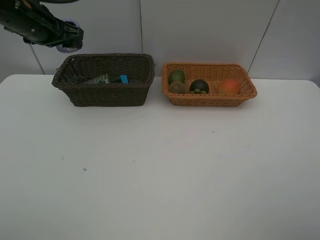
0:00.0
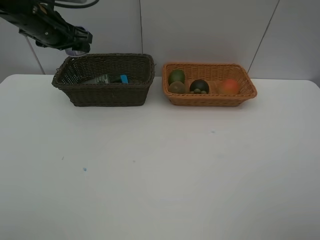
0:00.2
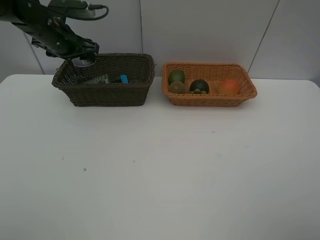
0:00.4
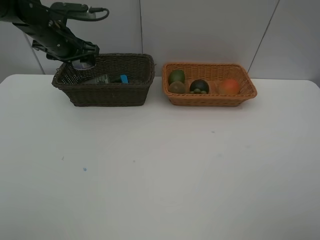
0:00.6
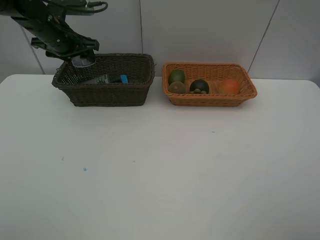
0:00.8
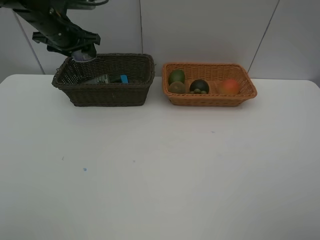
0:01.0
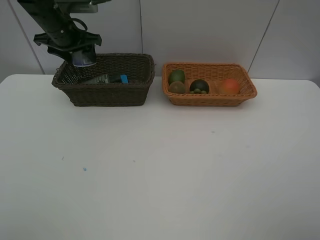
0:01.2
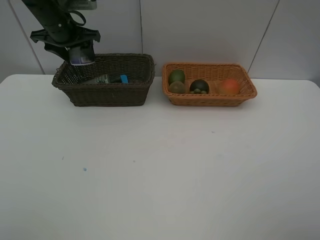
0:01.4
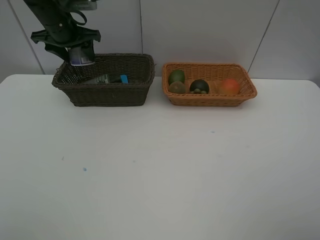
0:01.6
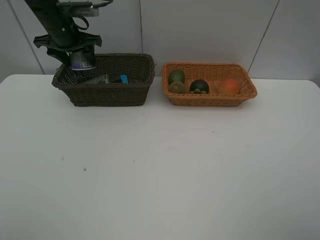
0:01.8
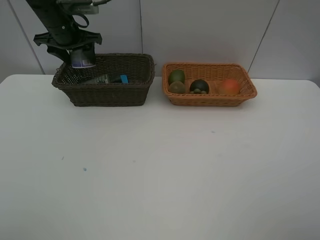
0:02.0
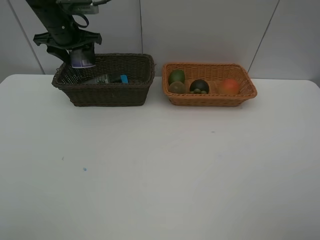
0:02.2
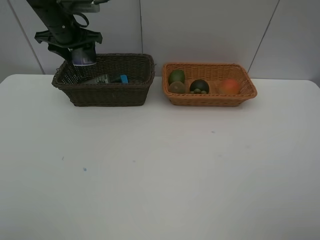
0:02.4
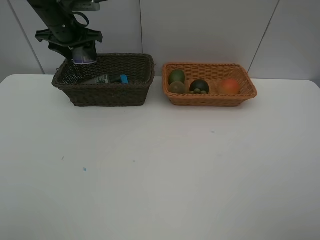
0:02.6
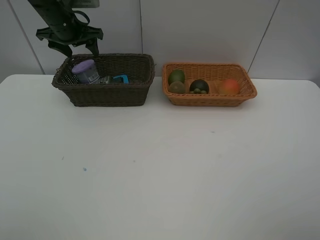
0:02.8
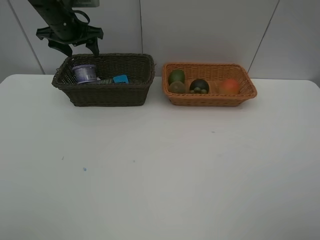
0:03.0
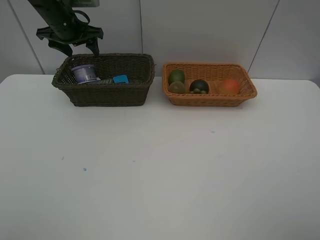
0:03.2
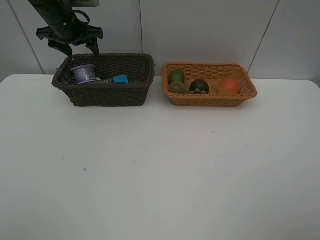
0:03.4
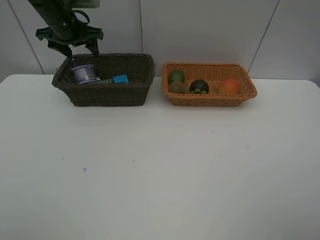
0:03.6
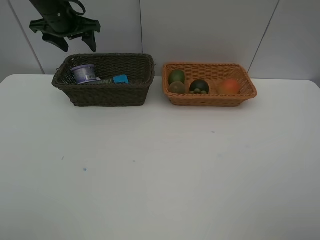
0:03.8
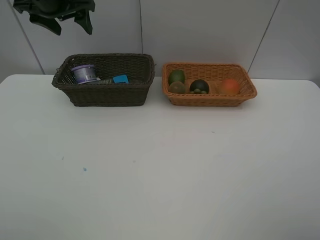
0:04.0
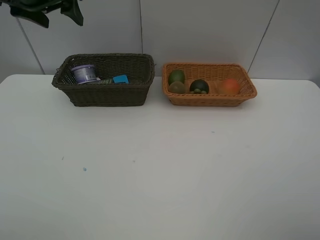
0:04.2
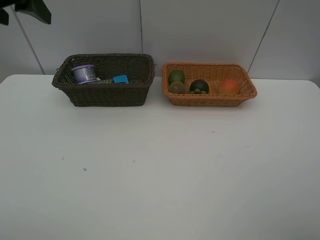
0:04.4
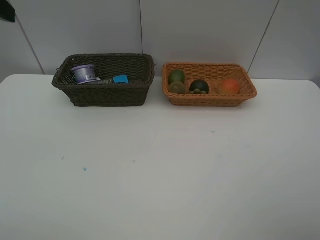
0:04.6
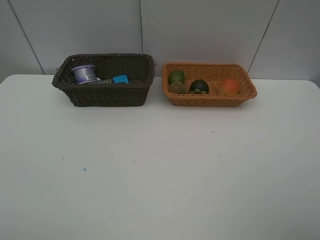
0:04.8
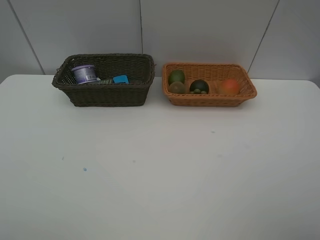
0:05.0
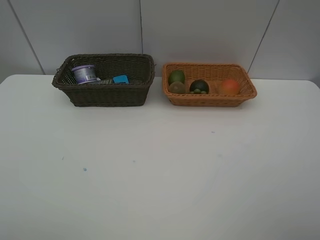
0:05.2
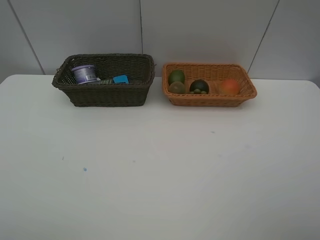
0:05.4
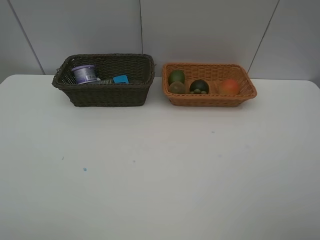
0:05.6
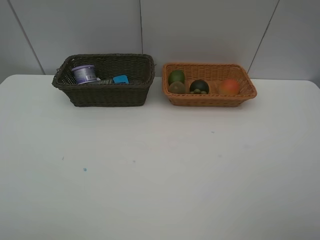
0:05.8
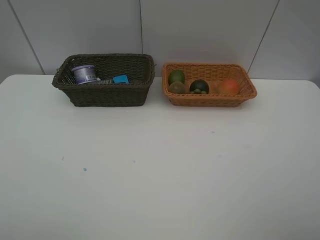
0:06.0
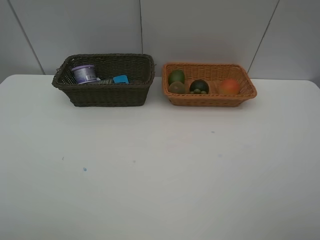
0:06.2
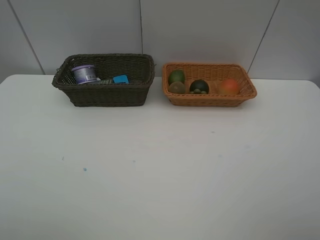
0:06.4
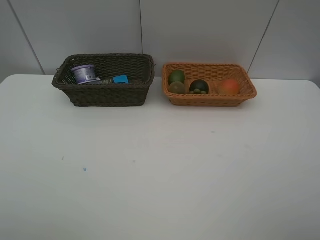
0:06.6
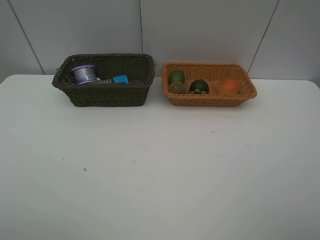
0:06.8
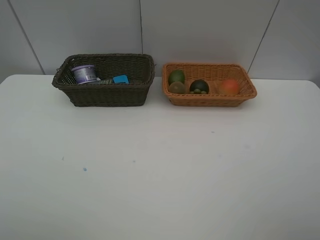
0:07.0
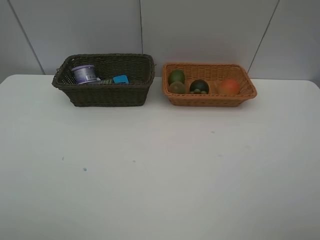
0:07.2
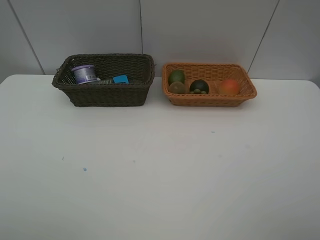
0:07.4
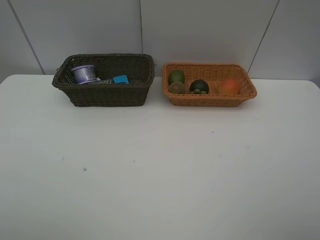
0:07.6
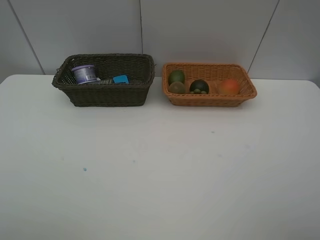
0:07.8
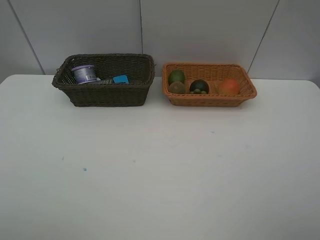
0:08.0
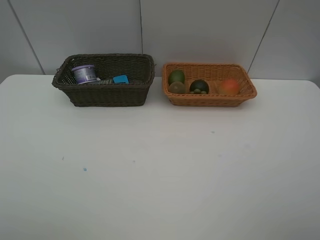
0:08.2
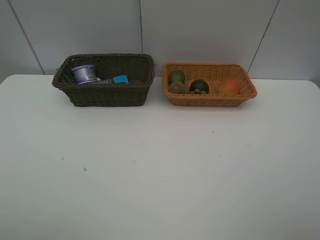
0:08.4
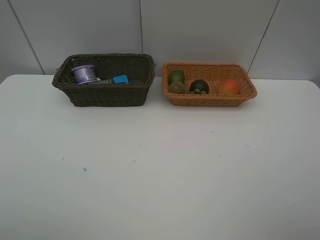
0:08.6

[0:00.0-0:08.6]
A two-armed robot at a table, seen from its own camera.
Task of the whole recording: Place multiple objects separately in different baskets.
Step, 0:00.0 to 0:03.0: Place the Incense box in the dark basket with left gripper.
0:00.0 to 0:01.4: The left gripper heads forward, covering about 5 cm.
0:01.4 to 0:02.8: The grippers make only small movements.
0:02.8 to 0:04.4: The left gripper goes about 25 cm backward and upward.
0:04.4 to 0:05.8: The left gripper goes about 35 cm backward.
0:07.2 to 0:08.6: Neither gripper changes place.

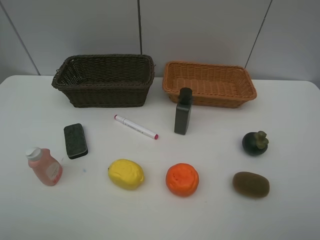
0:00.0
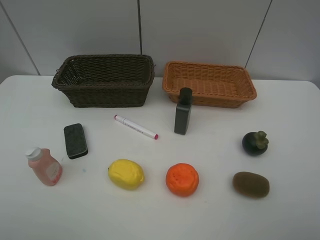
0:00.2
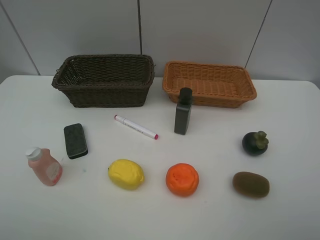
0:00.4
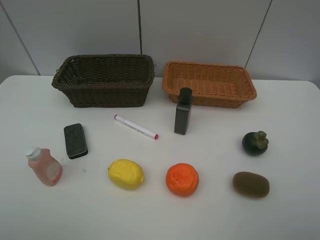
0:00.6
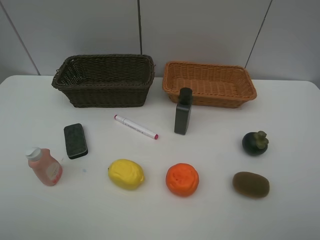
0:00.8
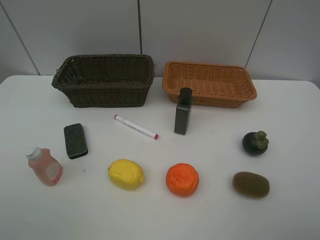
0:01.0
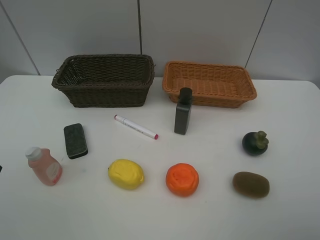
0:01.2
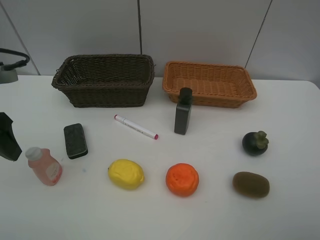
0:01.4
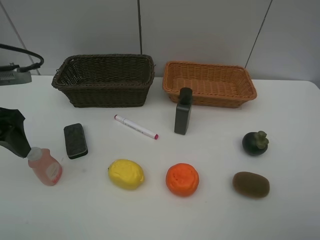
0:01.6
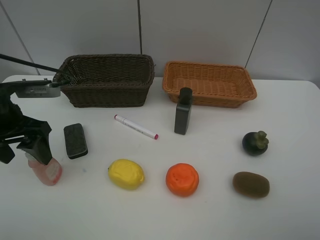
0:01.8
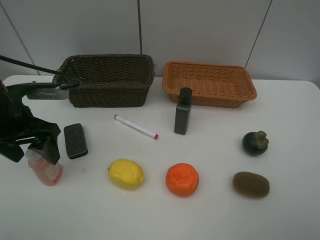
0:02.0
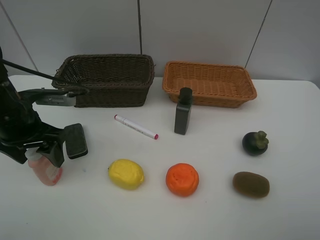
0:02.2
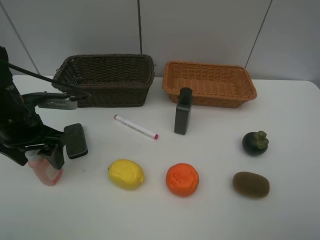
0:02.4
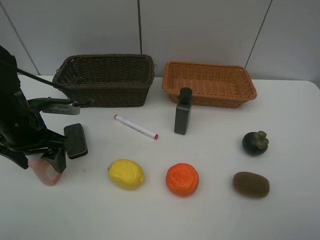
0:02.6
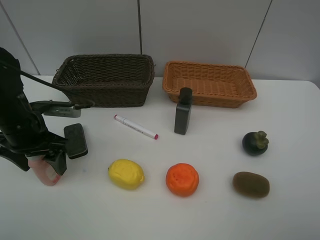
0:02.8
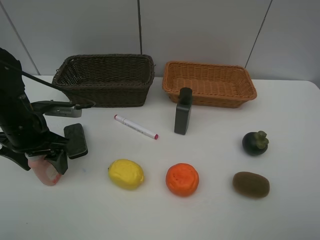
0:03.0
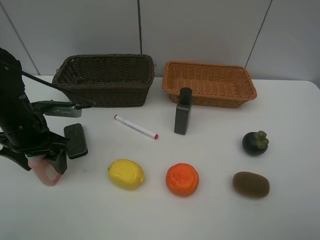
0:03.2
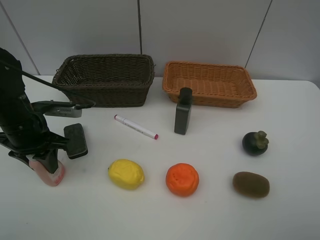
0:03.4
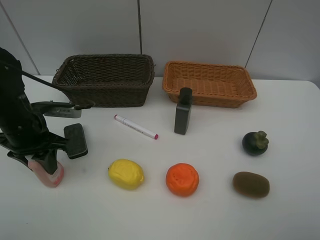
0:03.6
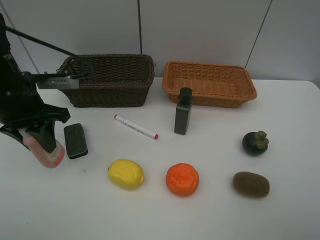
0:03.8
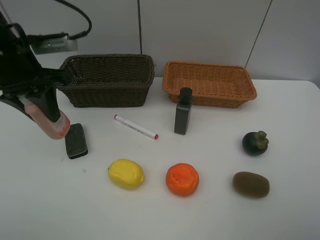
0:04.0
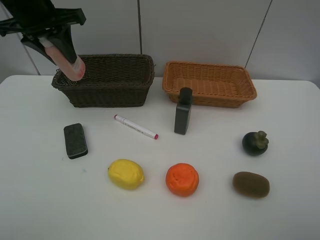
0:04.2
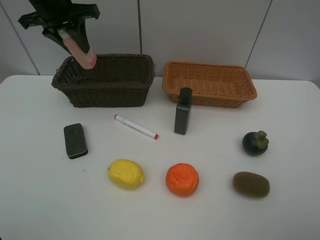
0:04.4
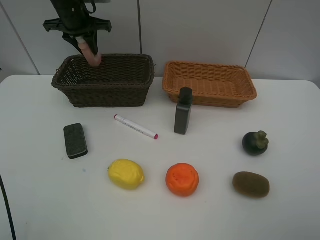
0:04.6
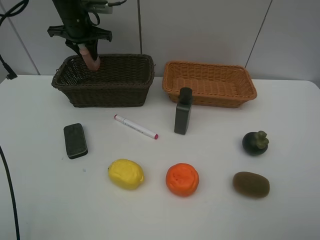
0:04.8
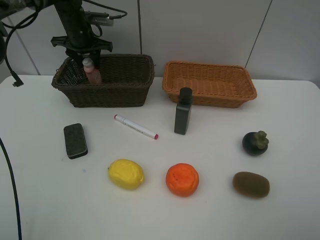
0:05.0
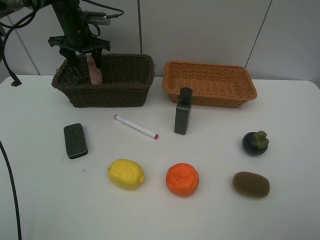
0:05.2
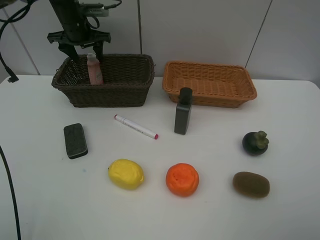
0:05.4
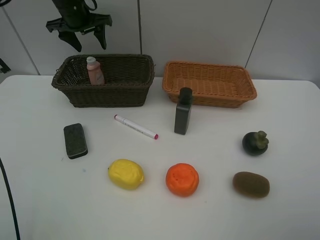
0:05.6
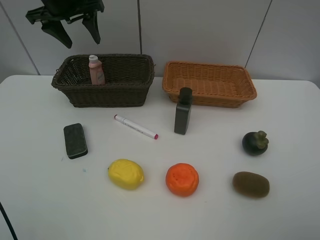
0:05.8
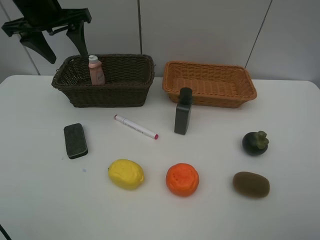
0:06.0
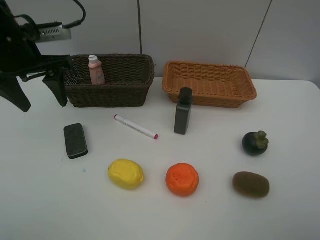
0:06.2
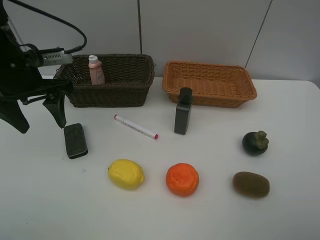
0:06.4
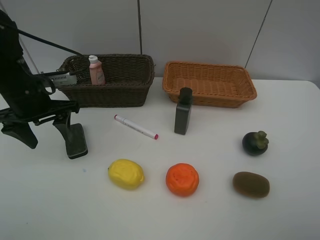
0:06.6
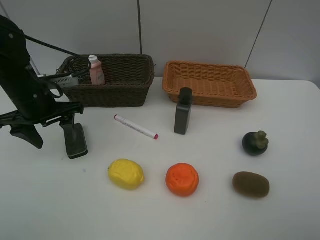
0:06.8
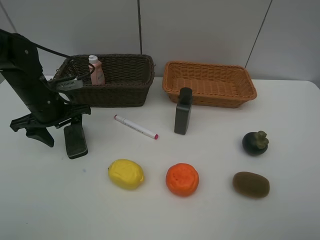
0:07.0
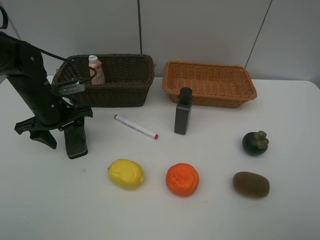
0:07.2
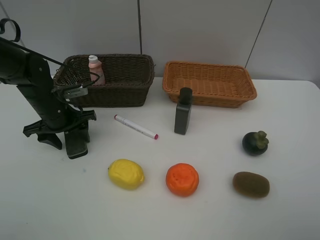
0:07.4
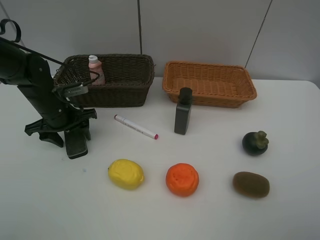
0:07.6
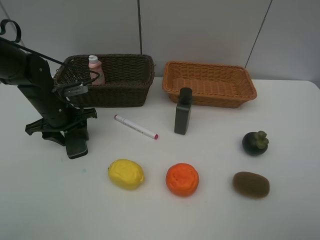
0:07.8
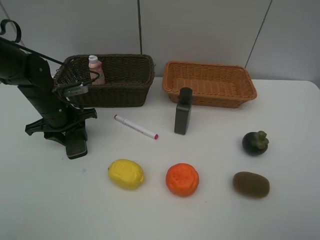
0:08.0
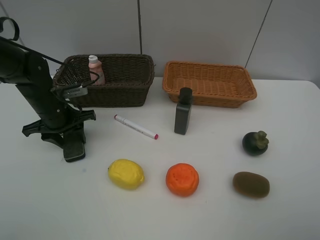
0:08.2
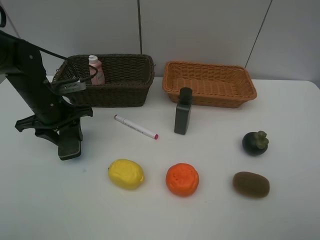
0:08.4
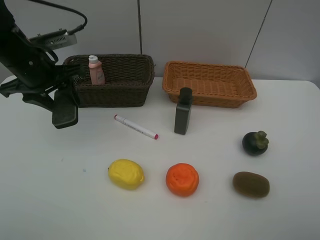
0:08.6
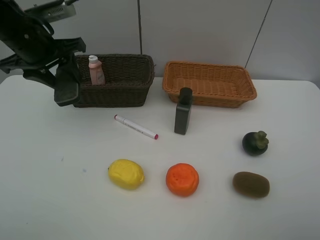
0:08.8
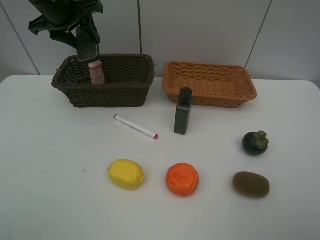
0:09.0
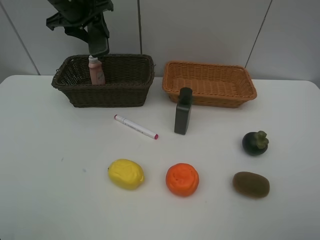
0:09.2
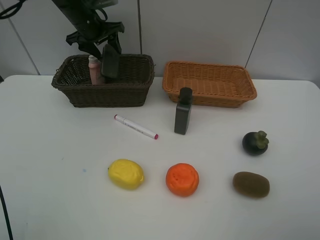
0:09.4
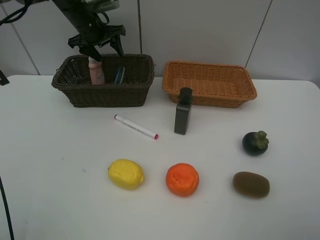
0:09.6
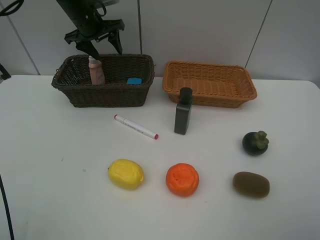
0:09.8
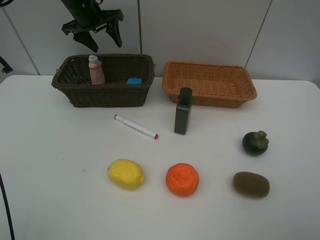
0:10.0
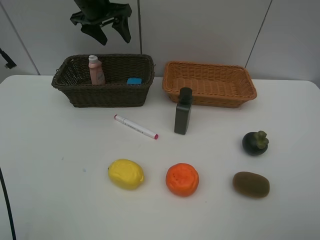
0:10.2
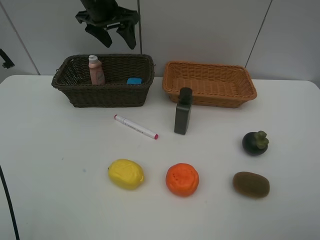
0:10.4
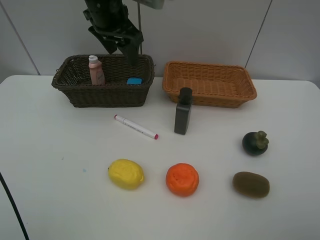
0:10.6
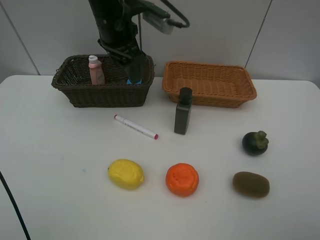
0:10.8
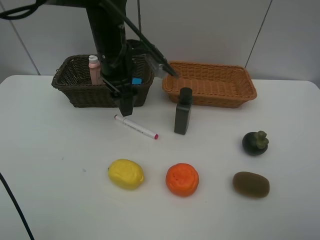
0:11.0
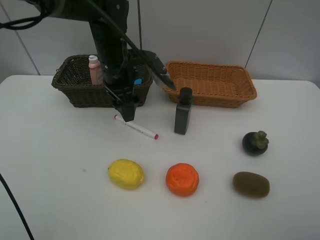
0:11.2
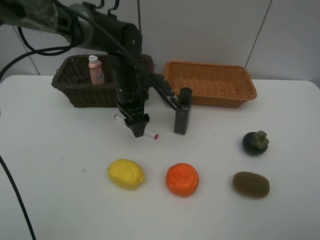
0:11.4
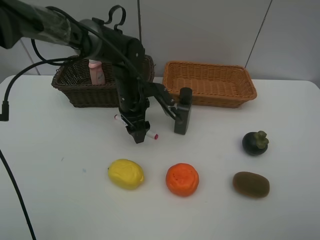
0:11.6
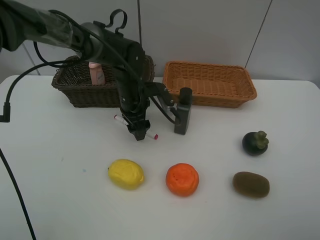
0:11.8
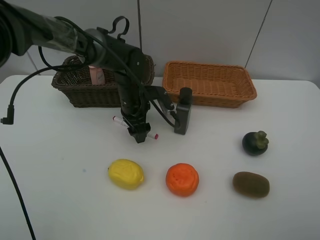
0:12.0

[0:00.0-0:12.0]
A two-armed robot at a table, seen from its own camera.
Task of the whole recording: Place multiple objects separately in different baskets.
Step, 0:00.0 to 0:03.6: Pick up the laundry detergent with left gripper.
Step, 0:03.8 to 0:05.4: Place the laundry detergent in the dark basket with left gripper.
Step, 0:05.6 to 0:08.2: Pick up blackboard eraser with left gripper.
Step, 0:08.4 to 0:09.6: Place the blackboard eraser in the dark basket with left gripper.
0:00.0 to 0:01.6: The left gripper goes some 20 cm forward.
0:01.6 to 0:03.0: The left gripper is displaced downward by about 10 cm.
0:03.0 to 0:04.4: The left gripper shifts about 25 cm forward and upward, and closes.
0:04.4 to 0:06.0: The left gripper shifts some 5 cm backward, and opens its fingers.
0:06.0 to 0:07.6: The left gripper is displaced downward by roughly 20 cm.
0:07.6 to 0:09.0: The left gripper travels upward and forward by approximately 20 cm.
0:09.0 to 0:10.4: The left gripper travels to the right by about 10 cm, and goes forward and returns, about 10 cm each way.
0:10.4 to 0:12.0: The left gripper is displaced downward and backward by about 20 cm.

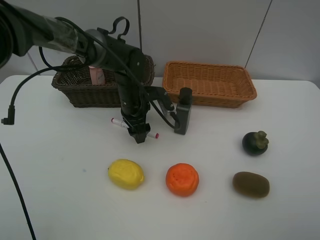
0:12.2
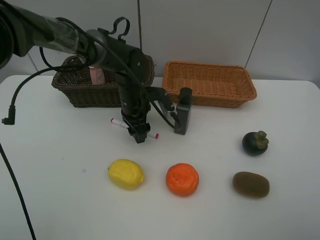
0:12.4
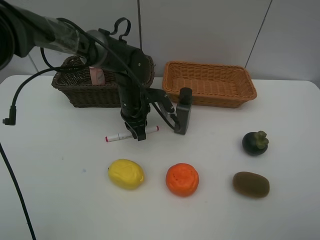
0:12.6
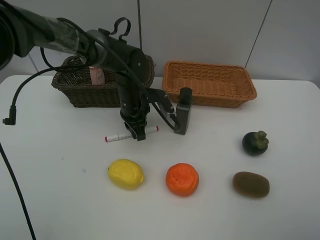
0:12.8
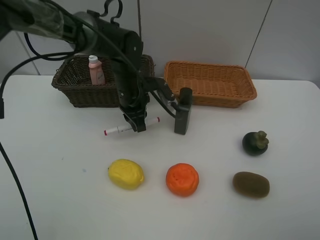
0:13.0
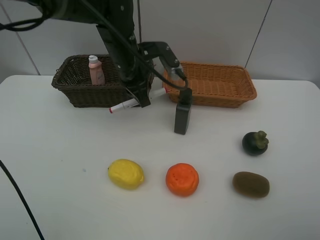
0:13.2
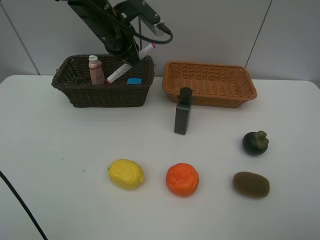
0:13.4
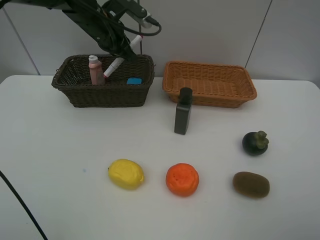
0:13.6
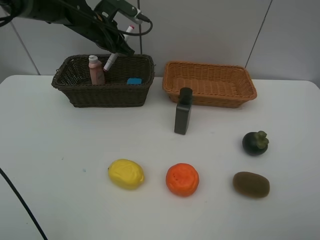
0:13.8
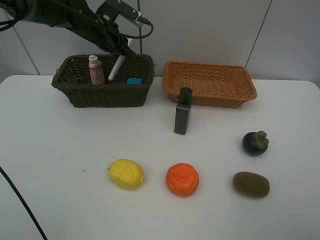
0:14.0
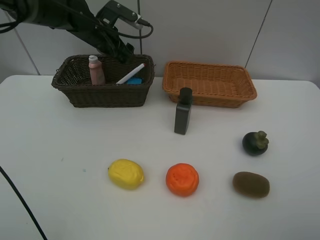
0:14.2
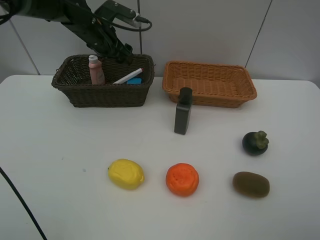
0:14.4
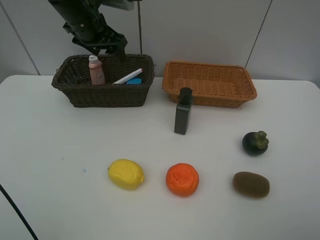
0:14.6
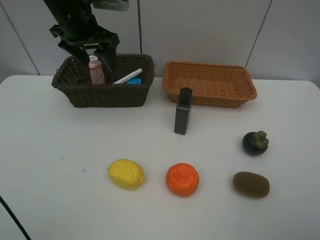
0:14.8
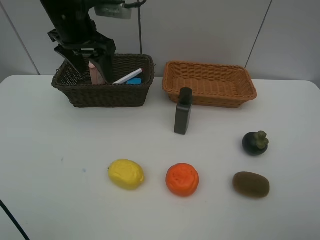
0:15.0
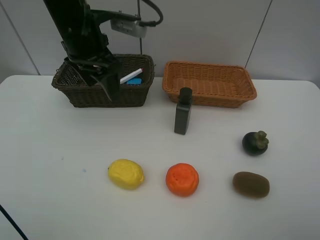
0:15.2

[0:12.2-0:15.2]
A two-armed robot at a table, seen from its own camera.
Task of the whole recording: Place multiple objects separately in different baskets.
Step, 0:13.2 to 0:14.2: Place the red marker in the dark basket with left gripper.
0:12.2 to 0:13.8: The left gripper moves upward, forward and to the left, about 20 cm, and closes.
0:13.8 to 0:15.2: The left gripper heads backward, covering roughly 15 cm, and opens its fingers.
